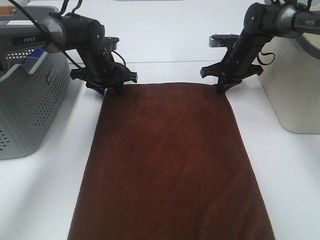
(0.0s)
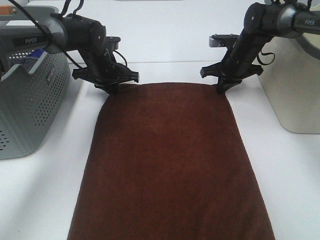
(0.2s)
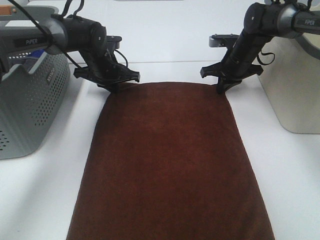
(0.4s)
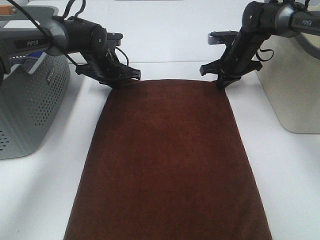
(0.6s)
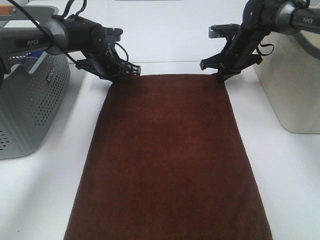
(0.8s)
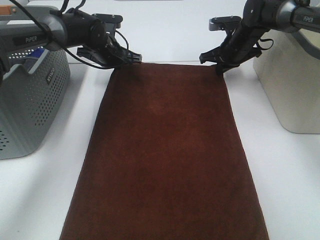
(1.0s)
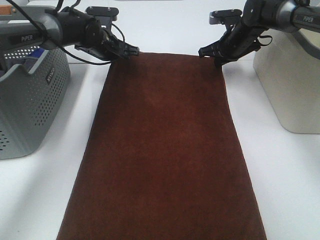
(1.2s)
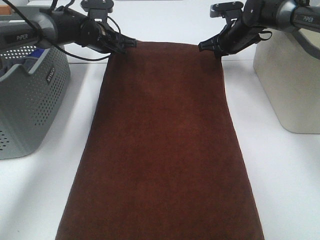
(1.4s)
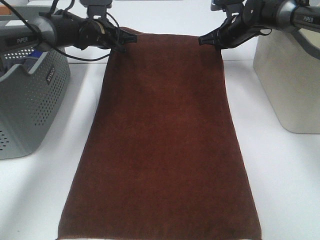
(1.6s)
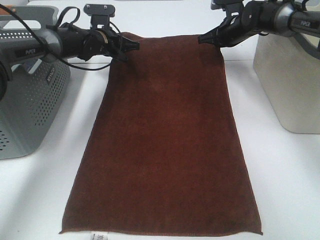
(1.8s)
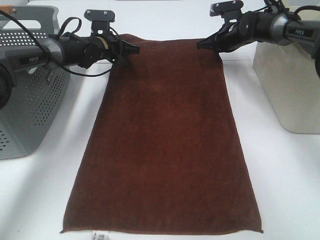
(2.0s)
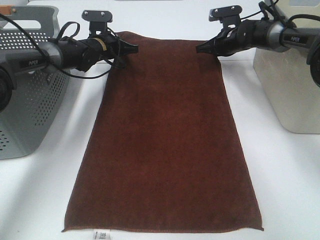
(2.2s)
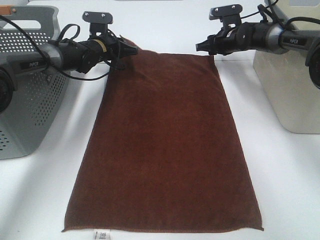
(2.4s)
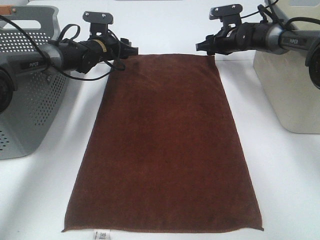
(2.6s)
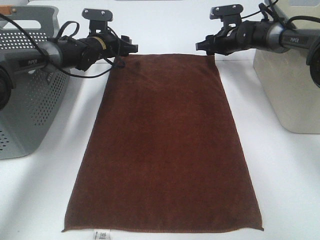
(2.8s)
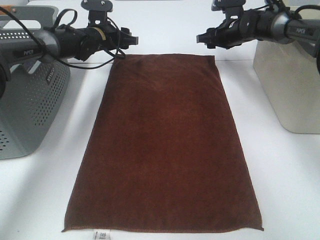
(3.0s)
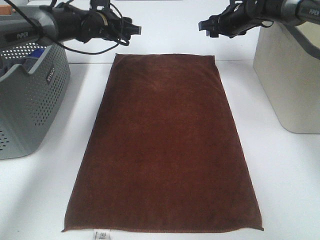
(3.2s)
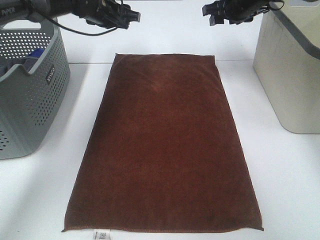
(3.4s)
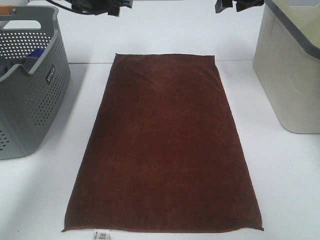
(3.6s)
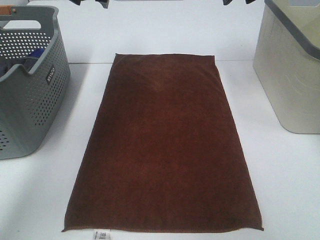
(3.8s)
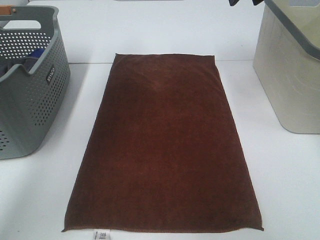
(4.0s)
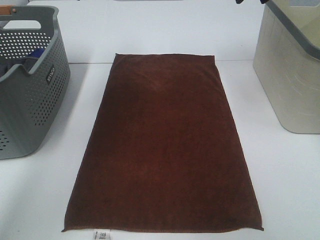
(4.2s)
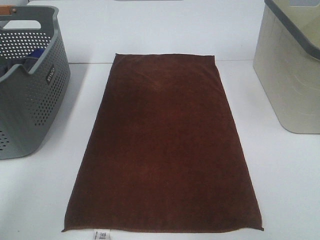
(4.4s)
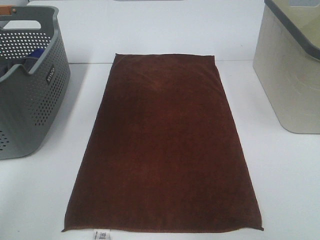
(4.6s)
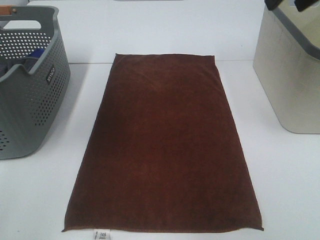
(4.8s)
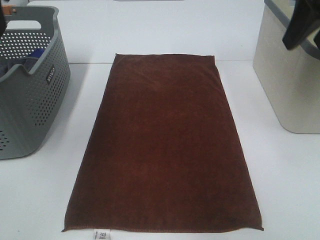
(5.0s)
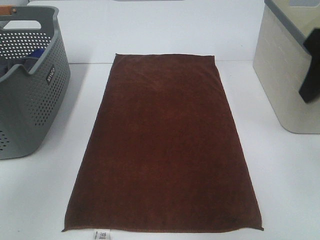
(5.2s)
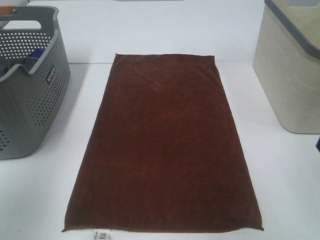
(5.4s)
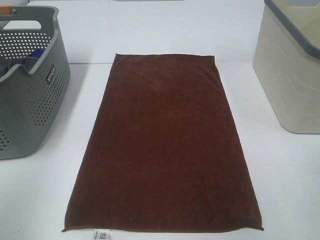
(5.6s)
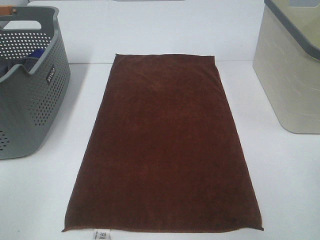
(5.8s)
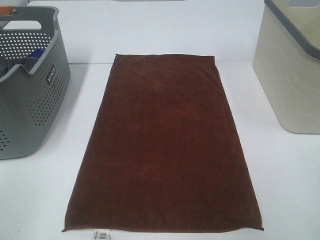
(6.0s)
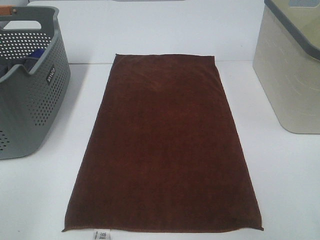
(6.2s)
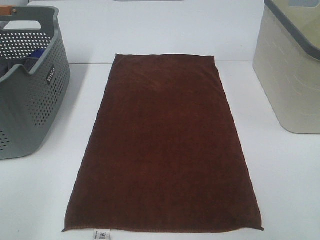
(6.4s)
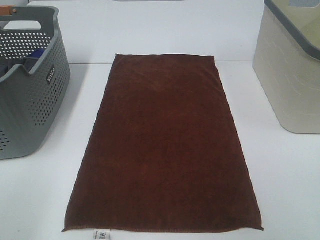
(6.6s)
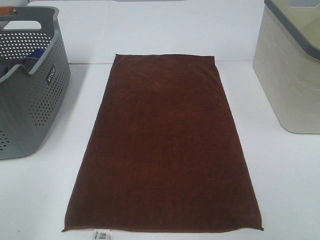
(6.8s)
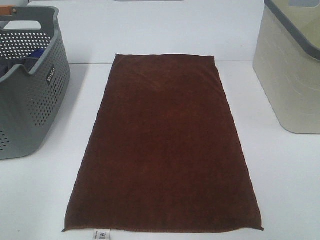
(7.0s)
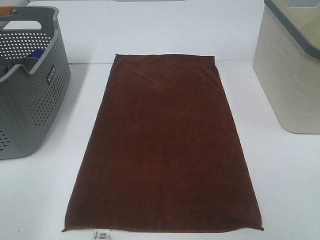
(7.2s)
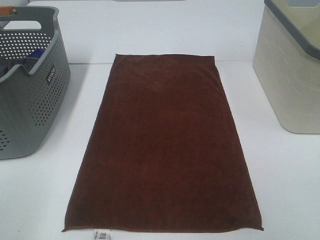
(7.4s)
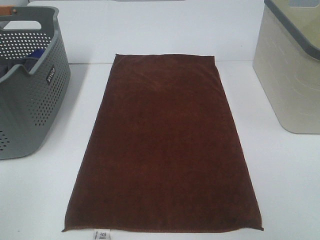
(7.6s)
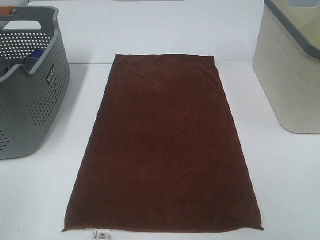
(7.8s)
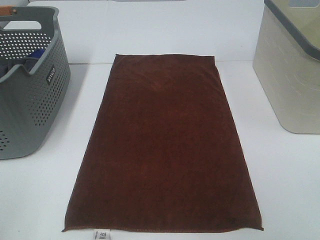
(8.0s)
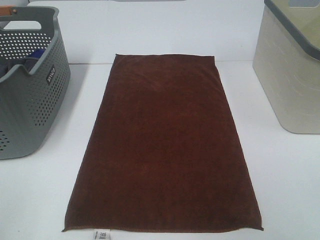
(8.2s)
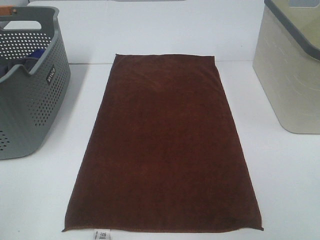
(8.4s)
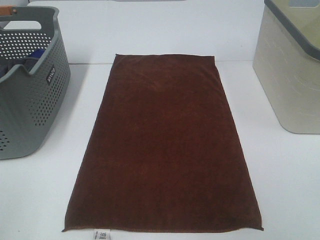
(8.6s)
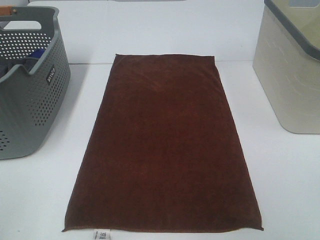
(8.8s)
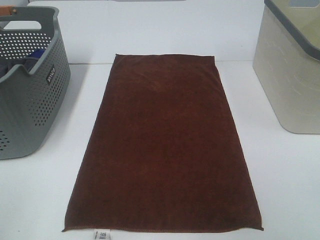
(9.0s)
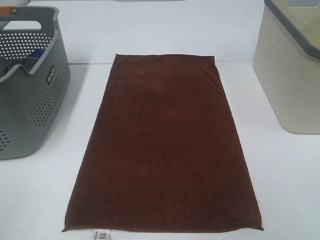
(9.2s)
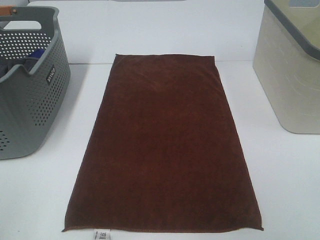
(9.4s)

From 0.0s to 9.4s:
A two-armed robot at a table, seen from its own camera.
Task of the whole recording: Remove the towel and place it.
From 0.0s to 1.6s: The right gripper changes place by approximately 5 cm; the left gripper moves forward, approximately 5 cm, and closes.
From 1.6s to 3.2s: The right gripper opens its fingers. The left gripper opens its fingers.
From 3.2s to 4.8s: The grippers both shift backward and upward by roughly 30 cm.
From 4.8s to 6.2s: The grippers both shift backward and downward by approximately 30 cm.

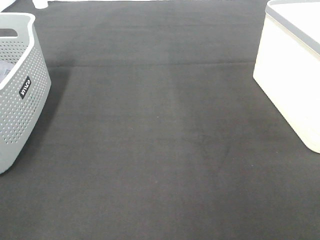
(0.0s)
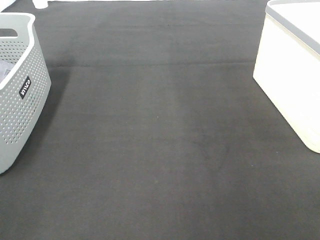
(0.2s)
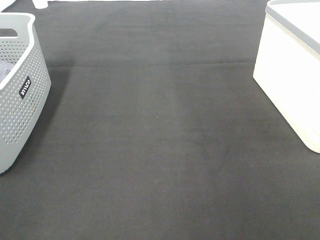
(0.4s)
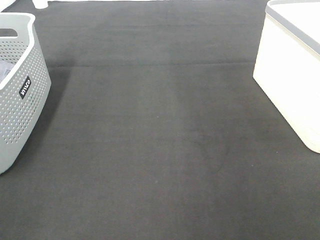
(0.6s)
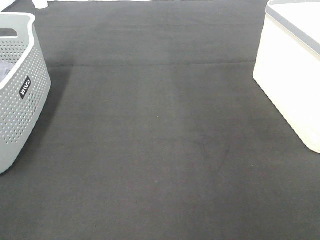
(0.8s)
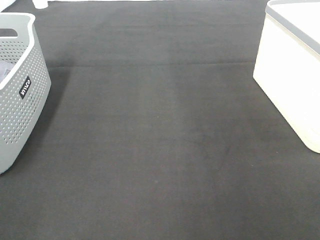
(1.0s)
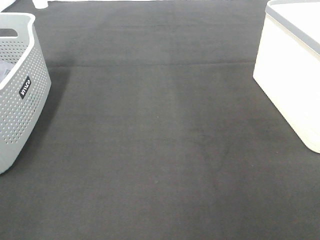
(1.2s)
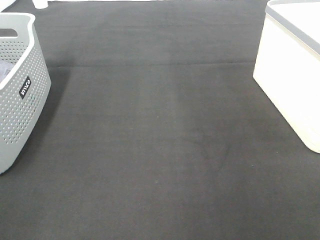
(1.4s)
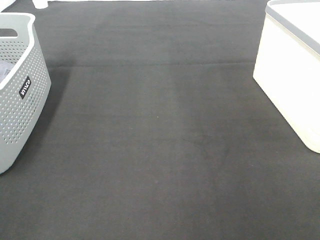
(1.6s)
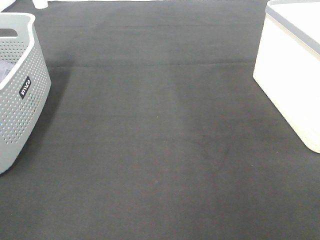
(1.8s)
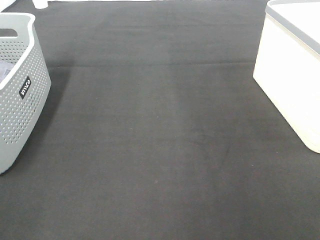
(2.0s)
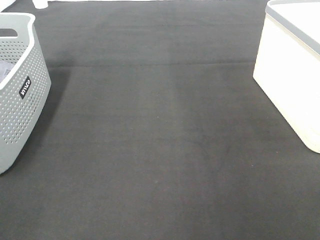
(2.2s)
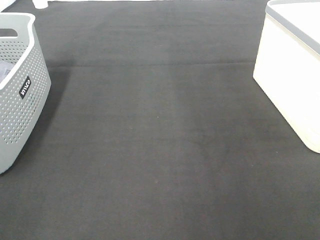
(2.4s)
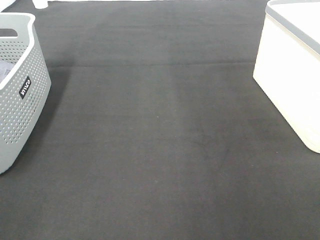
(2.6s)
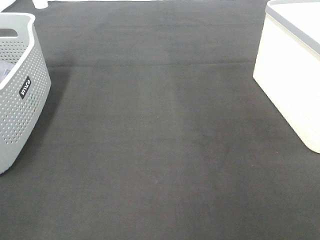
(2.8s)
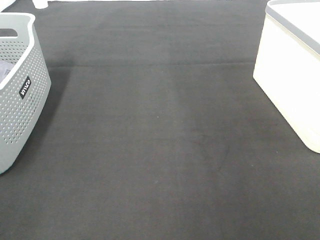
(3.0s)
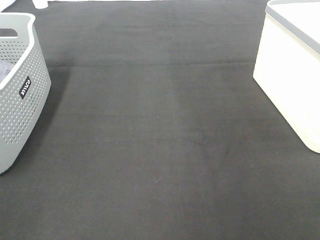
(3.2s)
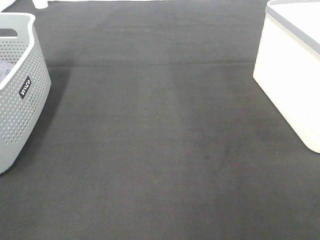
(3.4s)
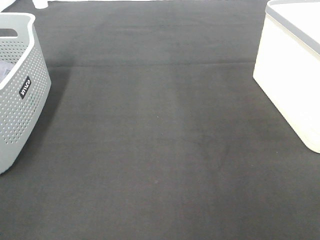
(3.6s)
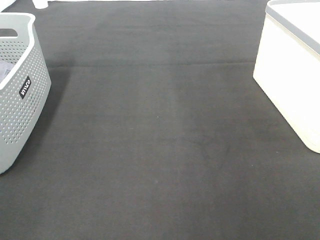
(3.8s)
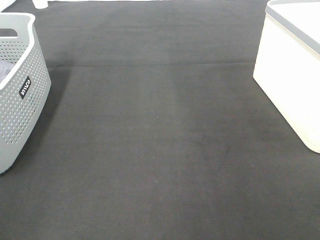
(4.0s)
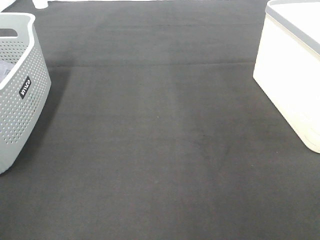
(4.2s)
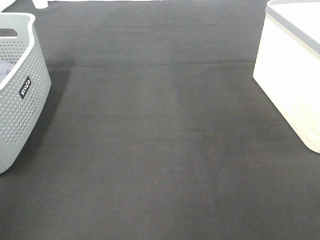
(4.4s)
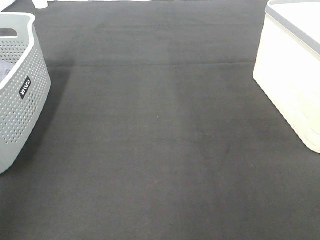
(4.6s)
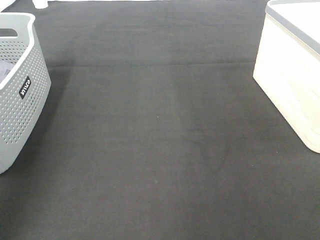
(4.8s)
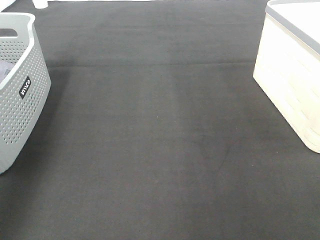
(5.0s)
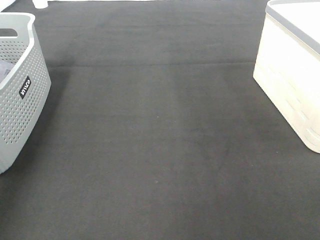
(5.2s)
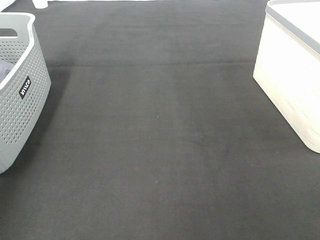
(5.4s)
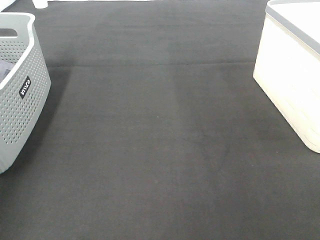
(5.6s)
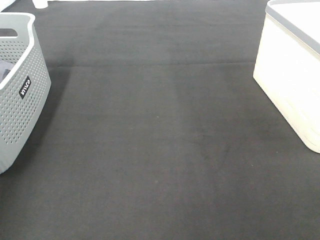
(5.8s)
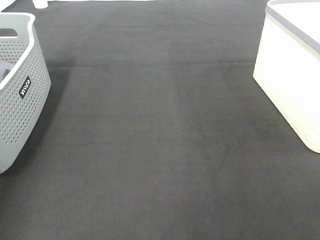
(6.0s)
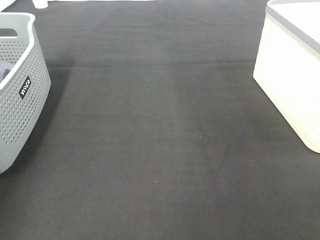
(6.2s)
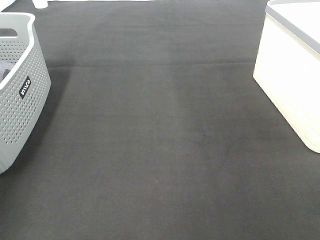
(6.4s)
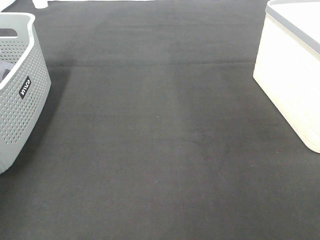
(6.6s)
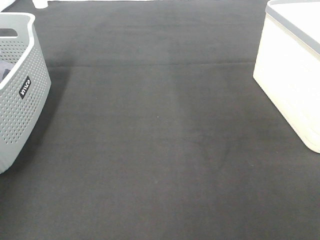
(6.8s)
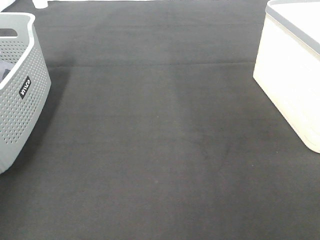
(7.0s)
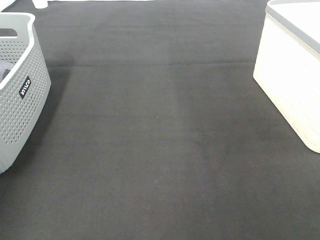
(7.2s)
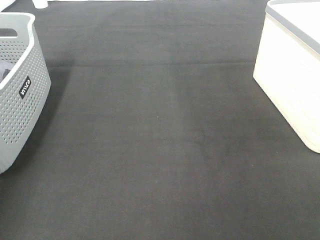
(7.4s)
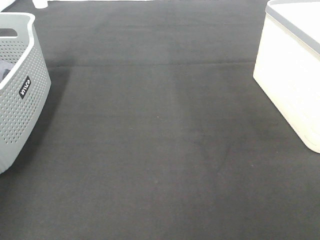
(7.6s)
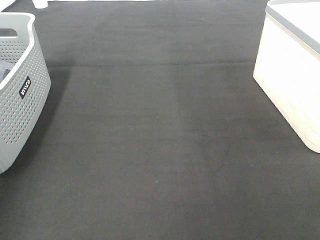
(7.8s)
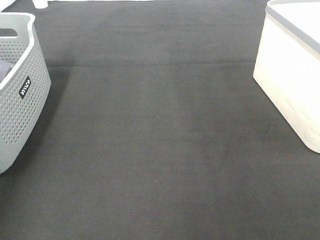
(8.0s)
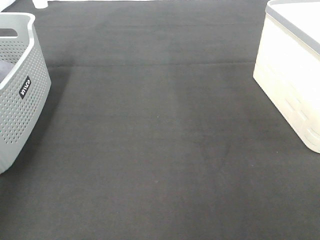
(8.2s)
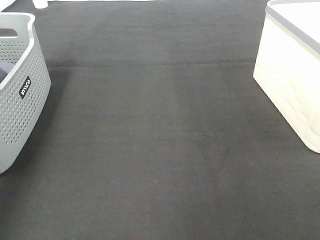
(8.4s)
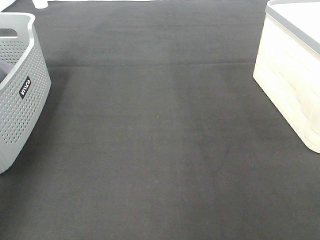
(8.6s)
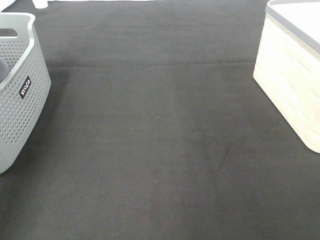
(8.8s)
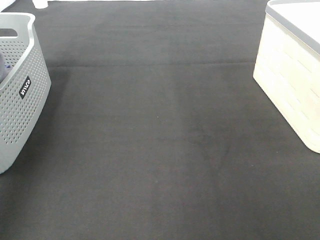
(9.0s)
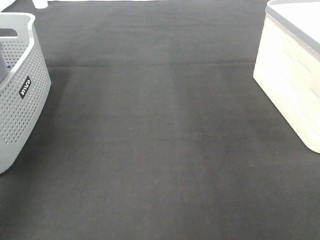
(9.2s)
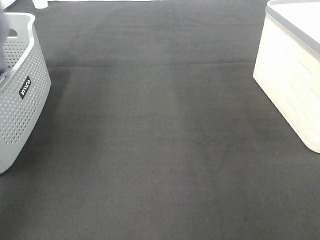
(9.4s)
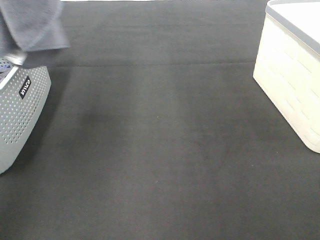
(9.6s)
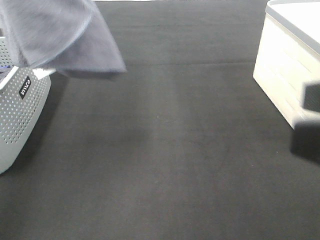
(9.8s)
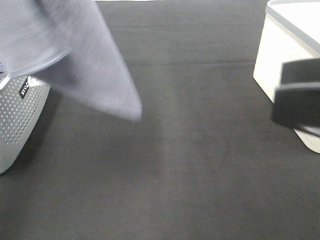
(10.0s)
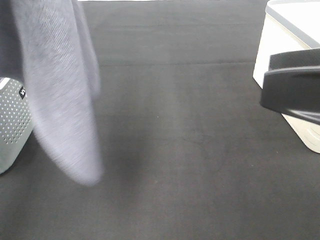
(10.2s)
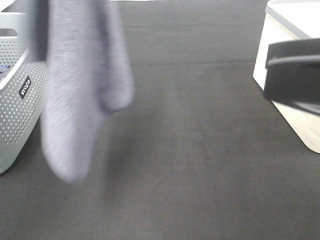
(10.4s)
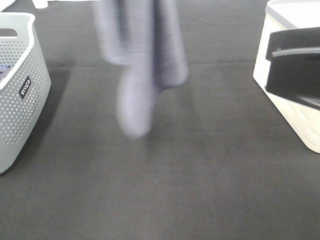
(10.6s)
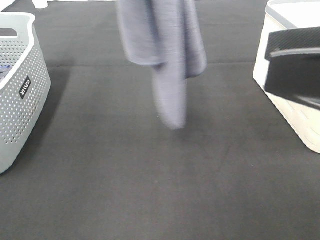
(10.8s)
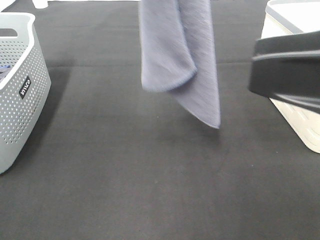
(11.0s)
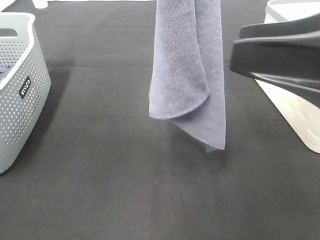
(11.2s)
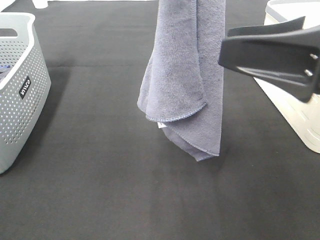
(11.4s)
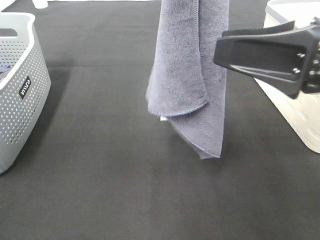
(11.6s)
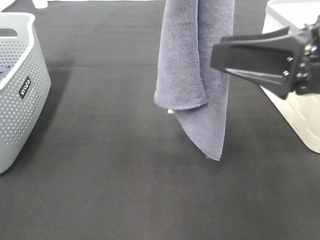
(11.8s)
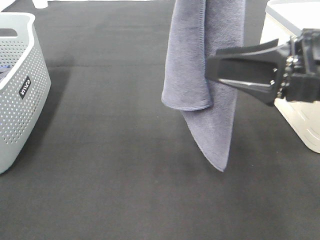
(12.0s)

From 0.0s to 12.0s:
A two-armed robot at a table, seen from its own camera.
Task of the whole recording: Remove the towel and place it.
From 0.0s to 3.0s: The two grippers keep their place.
From 7.6s to 9.0s: The left gripper goes about 30 cm upward and backward.
From 9.0s to 10.4s: The right gripper goes about 15 cm forward, to the left and upward. The left gripper moves to the right, approximately 15 cm.
From 10.4s to 12.0s: The right gripper moves forward and downward, about 15 cm. The left gripper goes some 15 cm to the right and downward.

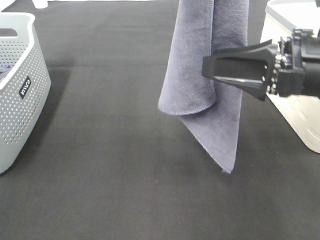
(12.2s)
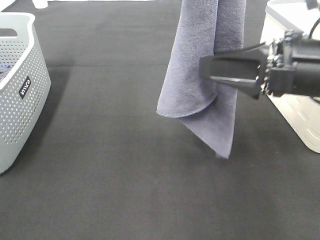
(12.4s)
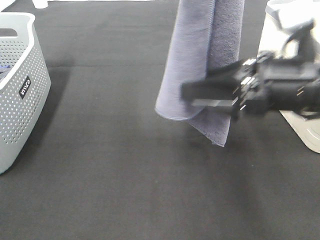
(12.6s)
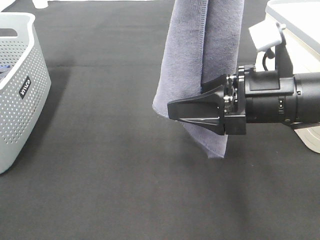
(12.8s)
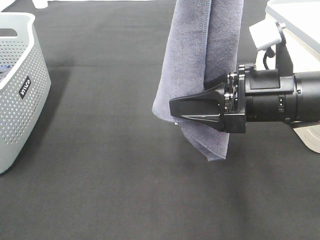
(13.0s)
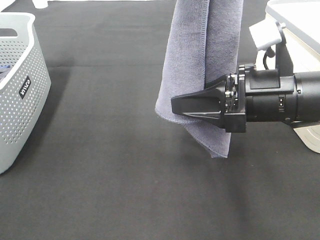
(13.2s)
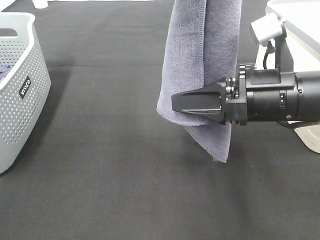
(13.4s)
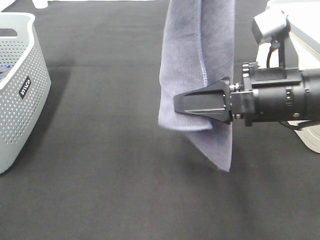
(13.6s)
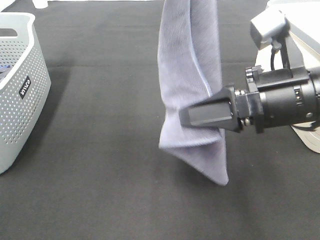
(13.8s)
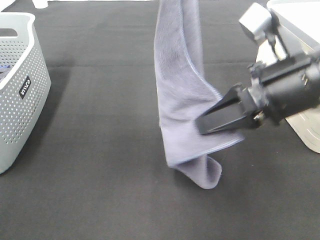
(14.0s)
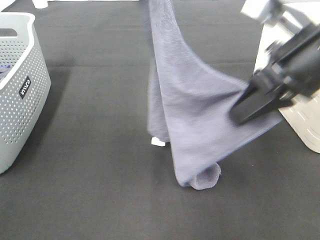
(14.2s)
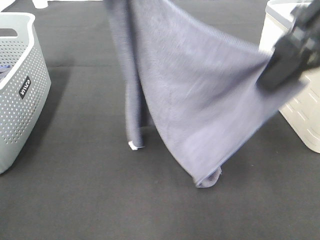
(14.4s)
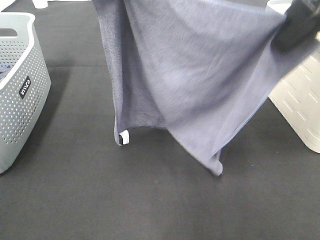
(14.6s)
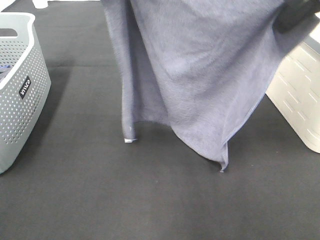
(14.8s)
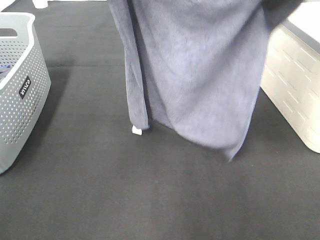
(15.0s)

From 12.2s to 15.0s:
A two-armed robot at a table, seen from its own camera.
Task of the whole recording: Remove the towel and place it.
From 12.2s to 13.6s: The right gripper closes up.
From 13.6s to 15.0s: The right gripper moves upward and forward, approximately 20 cm. The left gripper is displaced forward and downward by roughly 10 cm.
